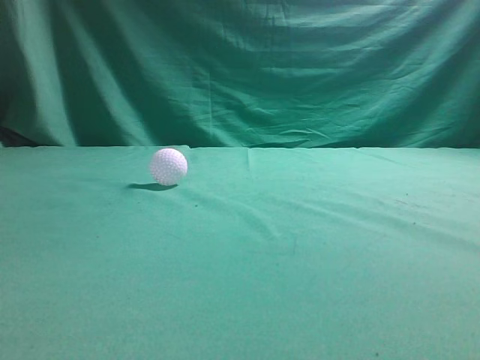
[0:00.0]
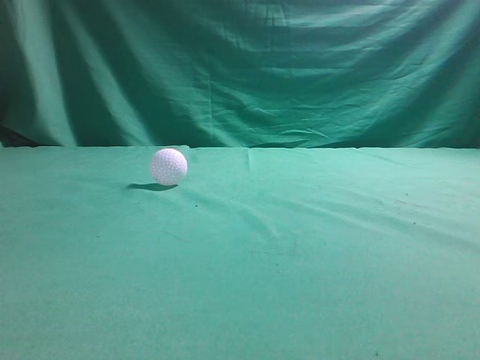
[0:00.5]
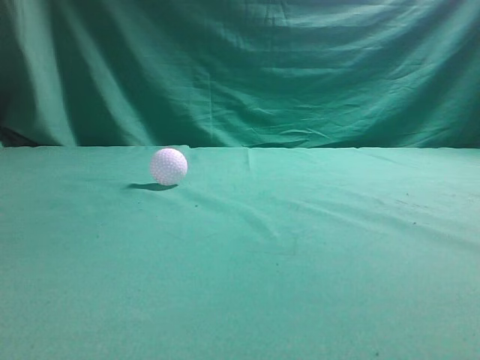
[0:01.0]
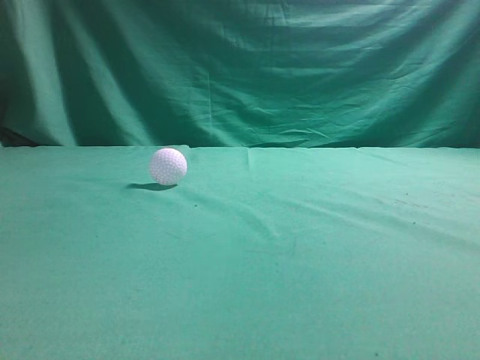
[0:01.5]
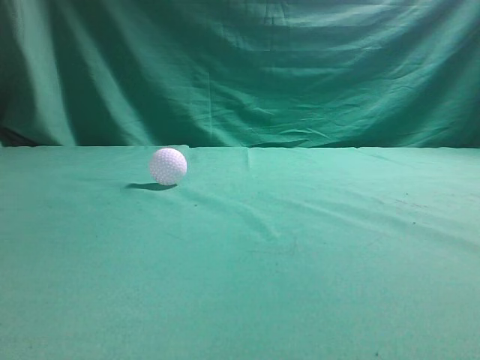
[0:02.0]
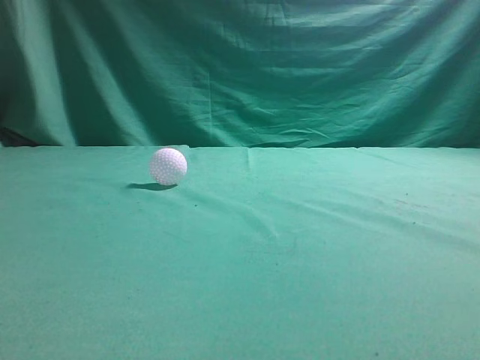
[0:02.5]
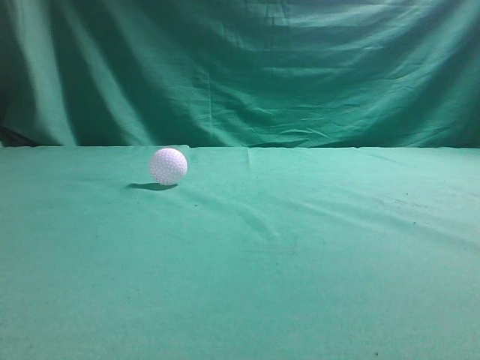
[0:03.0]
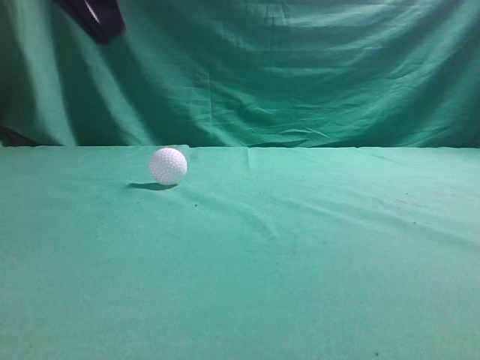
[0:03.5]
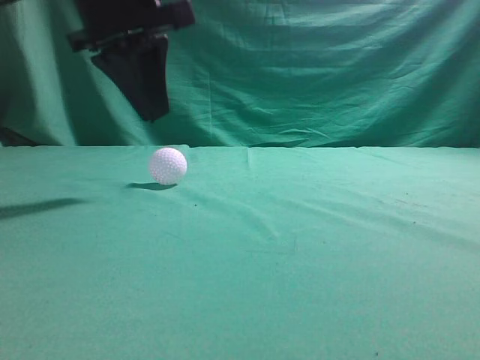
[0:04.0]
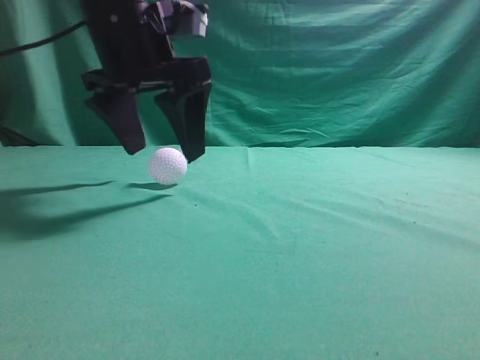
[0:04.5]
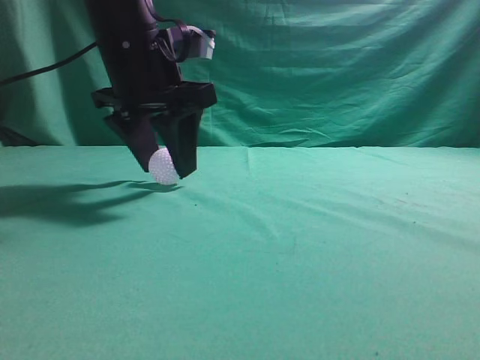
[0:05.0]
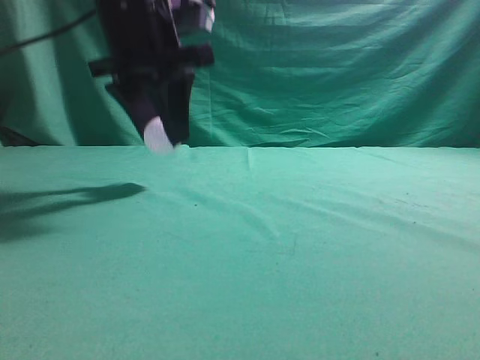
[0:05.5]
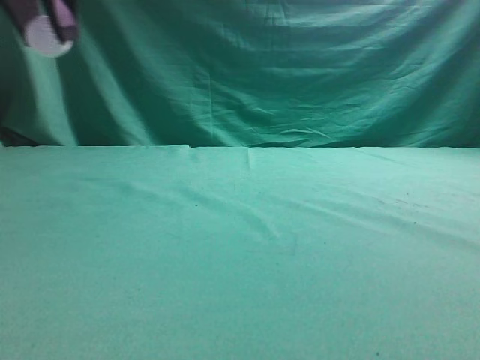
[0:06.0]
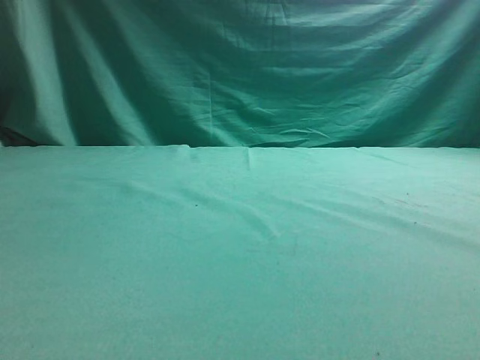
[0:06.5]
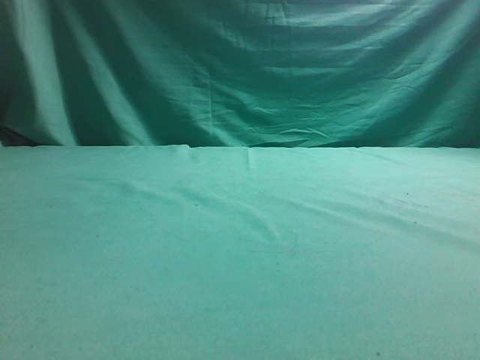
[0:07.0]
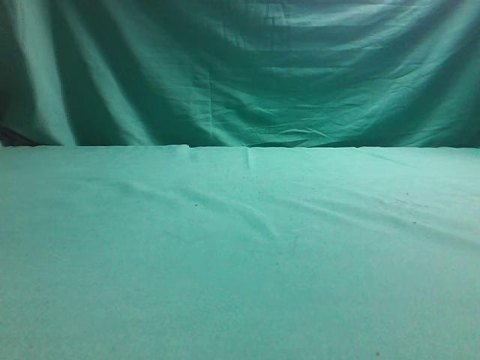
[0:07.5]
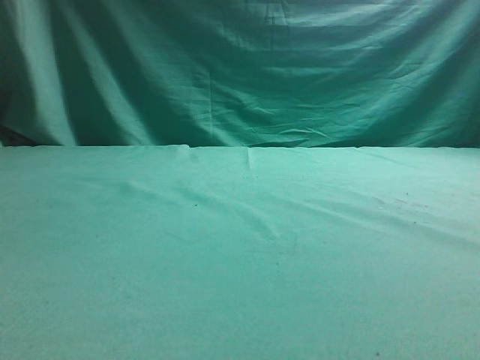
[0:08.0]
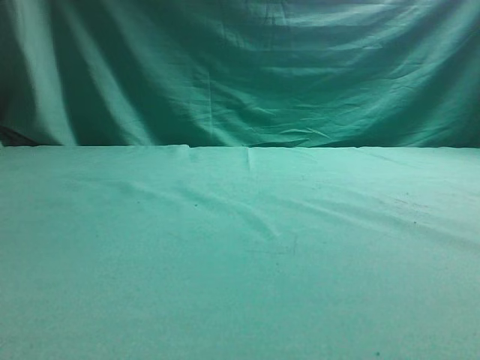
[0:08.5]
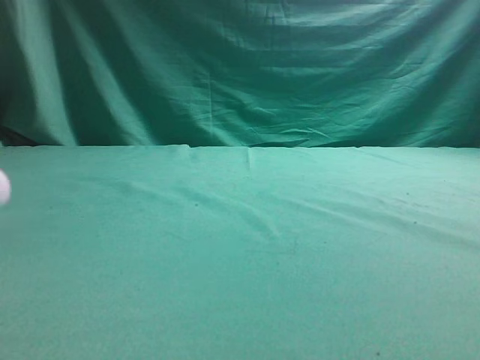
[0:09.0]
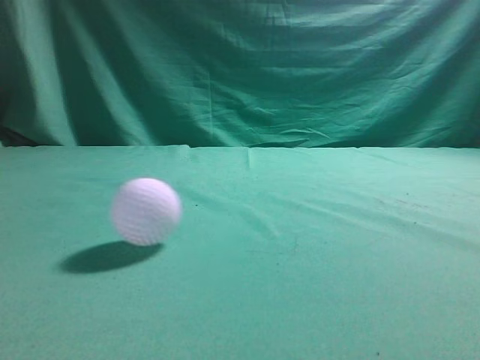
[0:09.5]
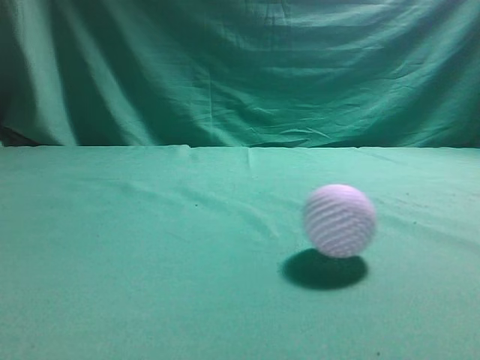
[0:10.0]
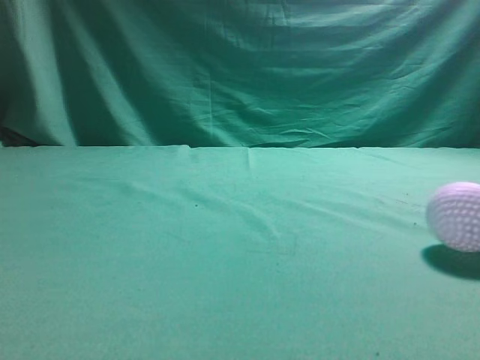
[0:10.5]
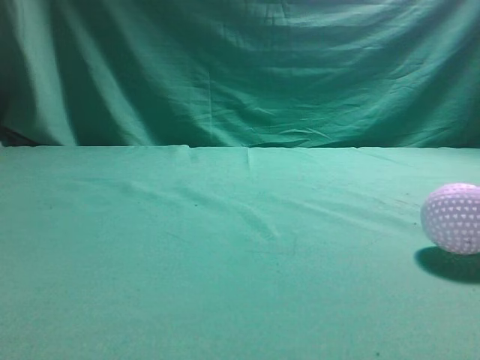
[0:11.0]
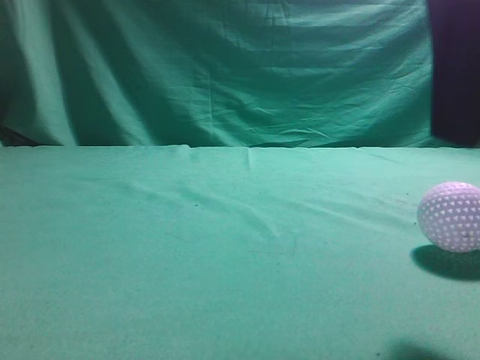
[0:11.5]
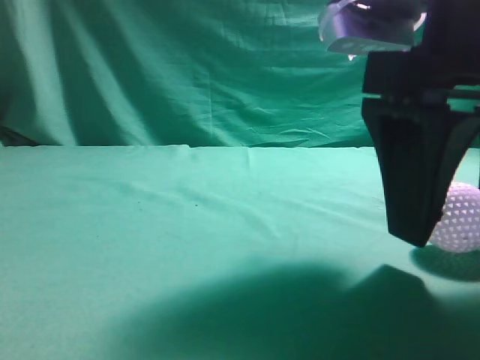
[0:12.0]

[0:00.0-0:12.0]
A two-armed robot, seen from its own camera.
Task of the whole recording: pick up the ball and place it on the plate, then pick up the ball from the plate and put it in the center of the table.
Step, 0:00.0 to 0:05.0: Grab the spherical object with your left arm.
Step, 0:06.0 to 0:08.0: Place the sphere on the white object.
0:02.0 to 0:04.0: The left gripper heads forward and to the right, covering roughly 35 cm.
0:04.0 to 0:06.0: The left gripper travels to the left and upward by approximately 15 cm, and opens up.
0:06.0 to 0:08.0: The left gripper shifts some 20 cm to the left and downward.
0:08.0 to 0:10.0: The left gripper heads upward, backward and to the right, covering about 25 cm, and closes. Meanwhile the right gripper moves upward and forward, about 10 cm.
0:10.0 to 0:12.0: The left gripper is displaced downward and backward by roughly 15 cm; the right gripper heads to the left, downward and forward, covering about 20 cm, and opens.

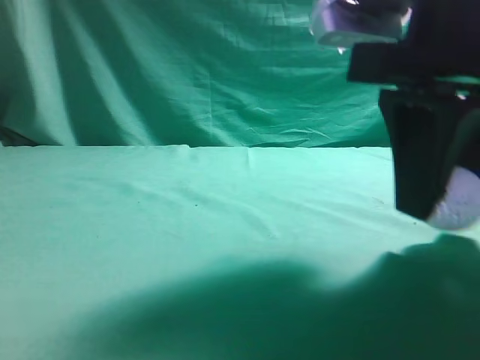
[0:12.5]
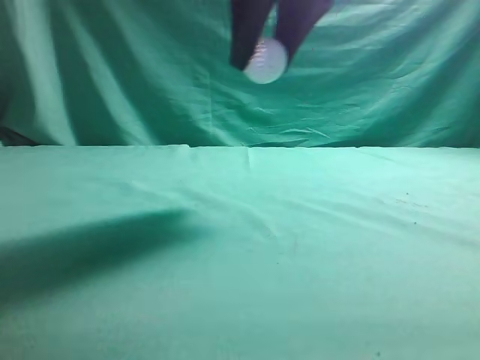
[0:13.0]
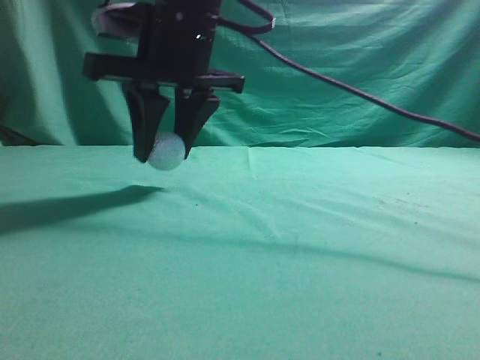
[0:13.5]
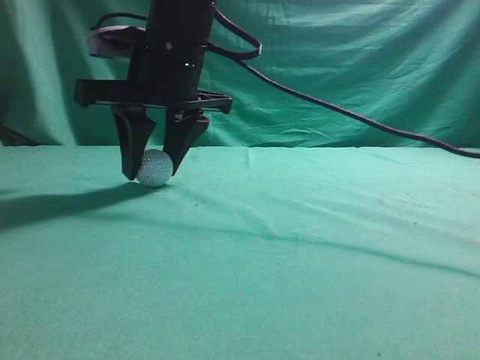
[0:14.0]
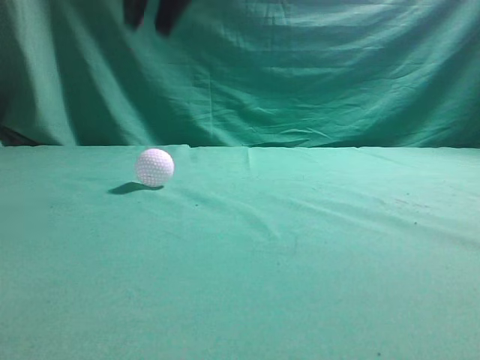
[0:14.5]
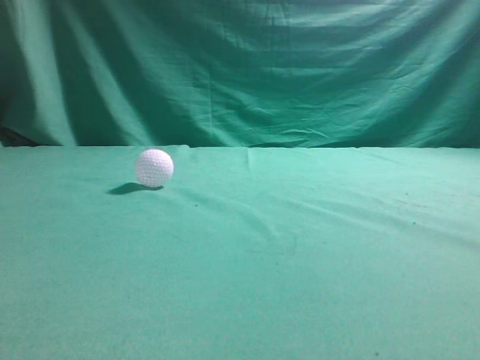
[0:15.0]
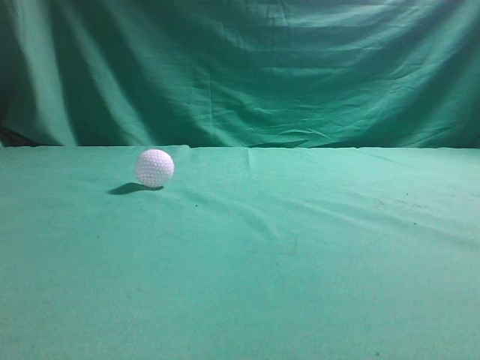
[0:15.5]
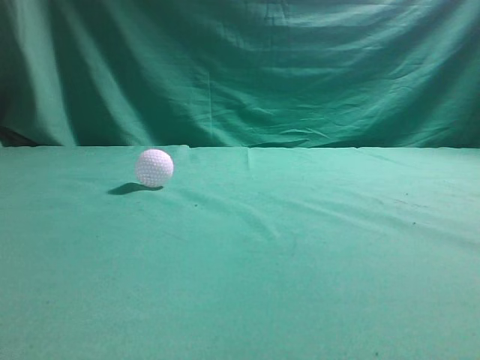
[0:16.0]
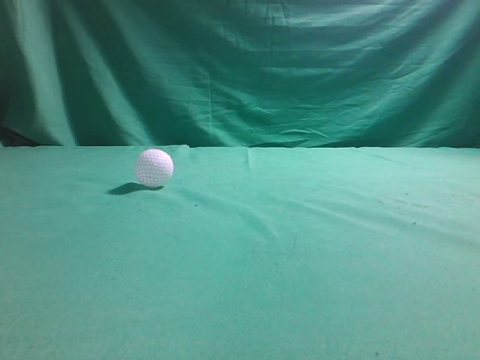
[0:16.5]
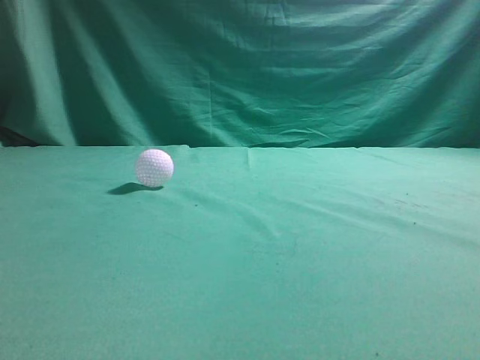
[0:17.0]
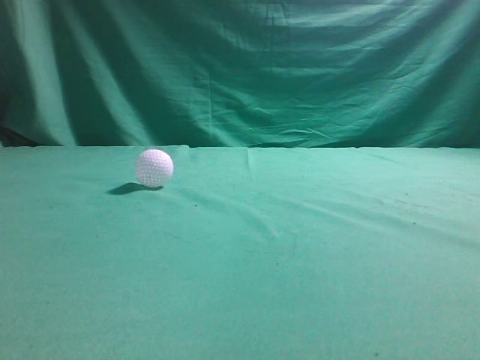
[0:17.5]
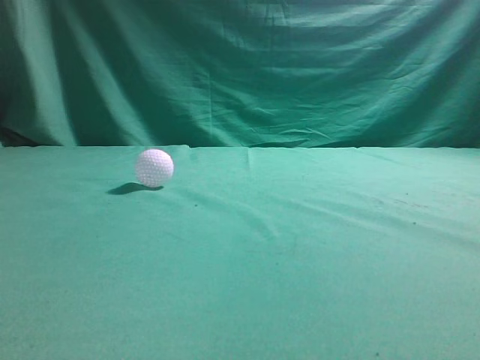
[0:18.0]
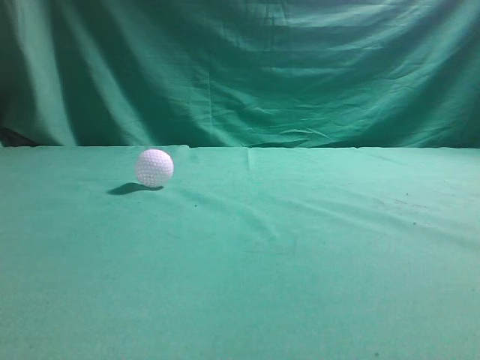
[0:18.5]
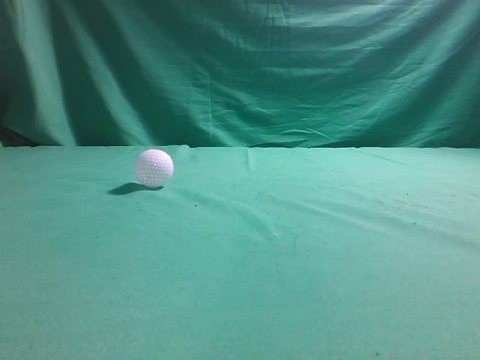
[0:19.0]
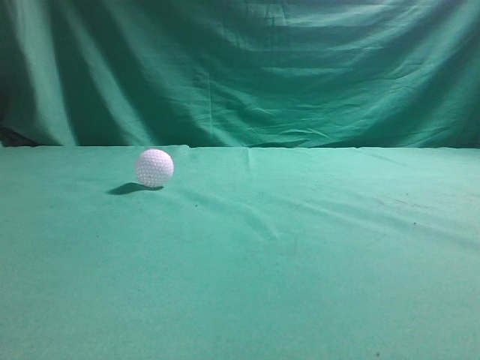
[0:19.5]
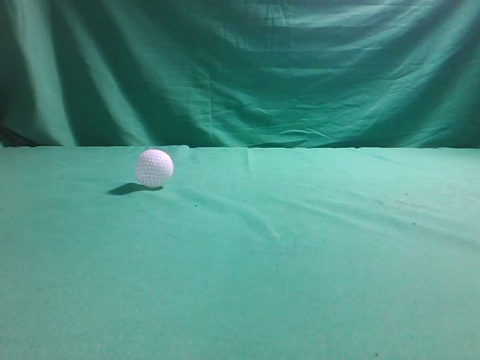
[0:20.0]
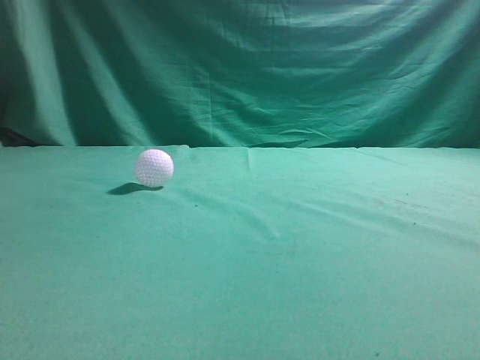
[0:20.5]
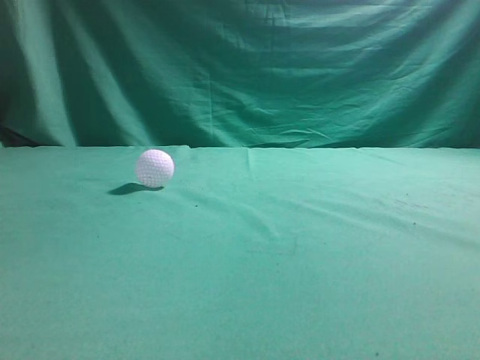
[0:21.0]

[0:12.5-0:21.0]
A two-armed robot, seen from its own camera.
Task of the whole recording: pick up the ball and place it on the plate, then pick up the ball from the plate and put it in the center of the table.
Step, 0:13.0 to 0:14.0: Put the picked-up object on the table.
0:12.5 to 0:14.5: The right gripper is displaced to the left, upward and forward by about 25 cm.
